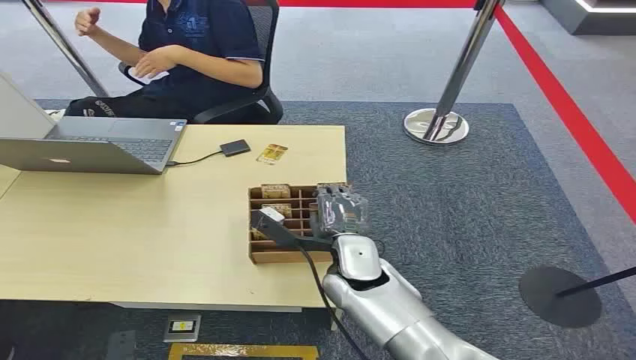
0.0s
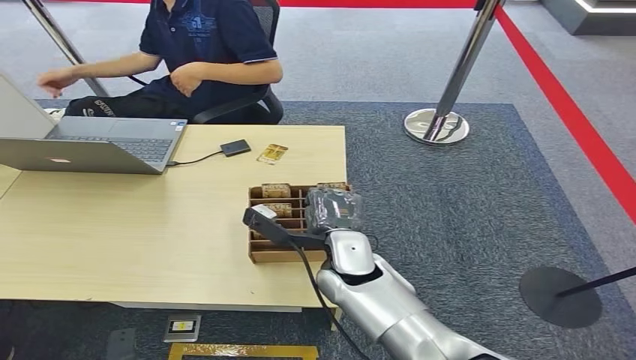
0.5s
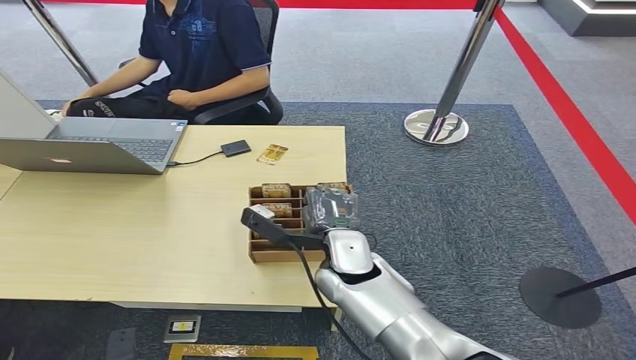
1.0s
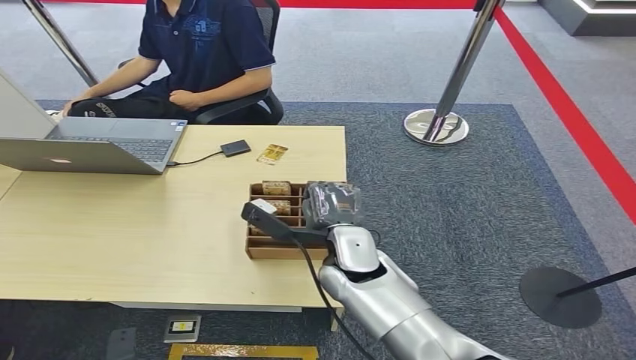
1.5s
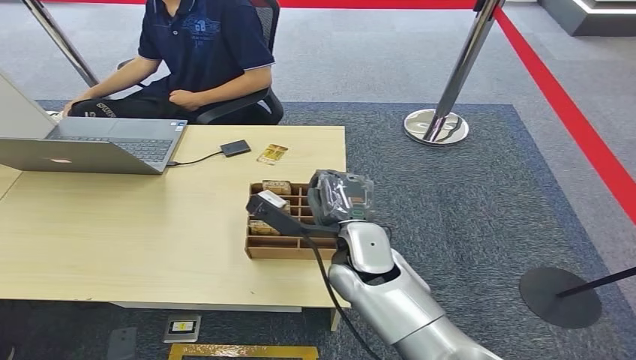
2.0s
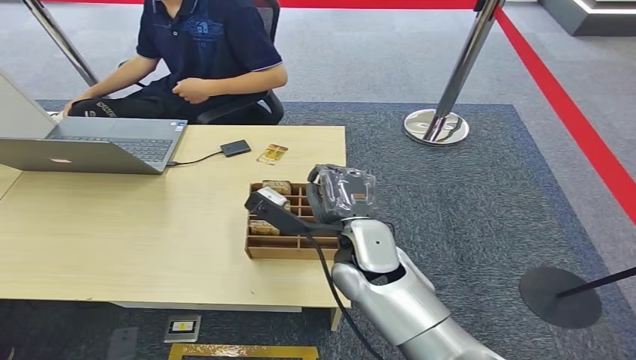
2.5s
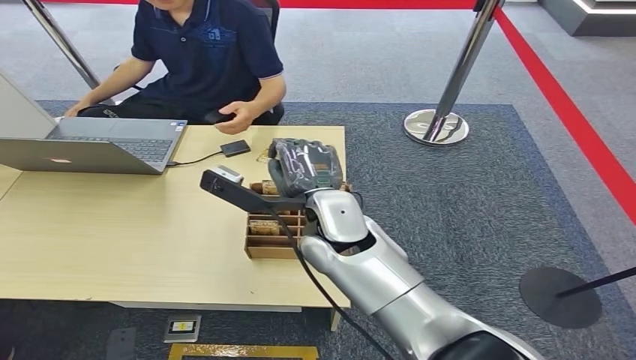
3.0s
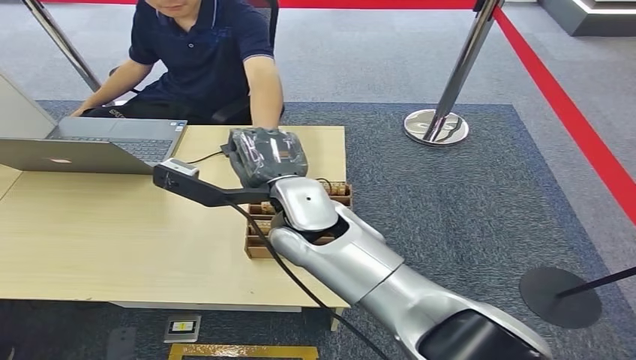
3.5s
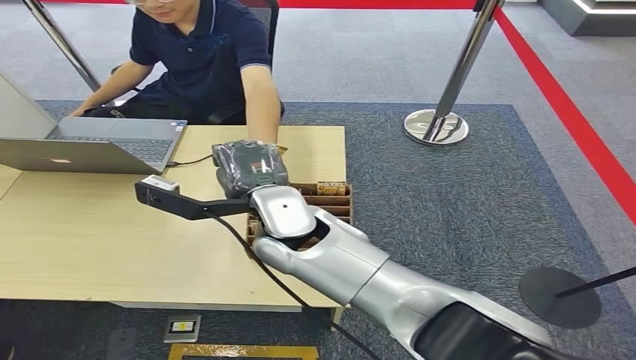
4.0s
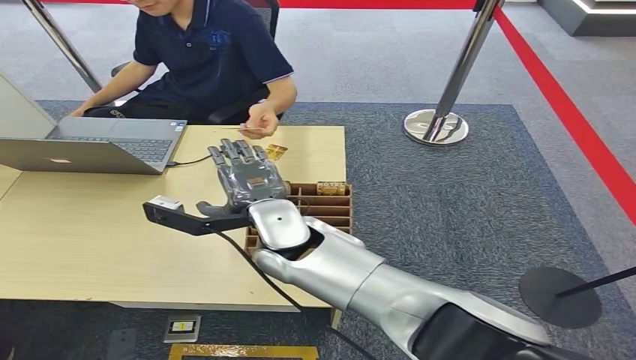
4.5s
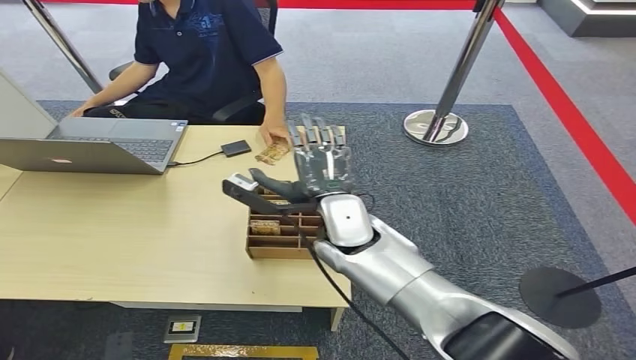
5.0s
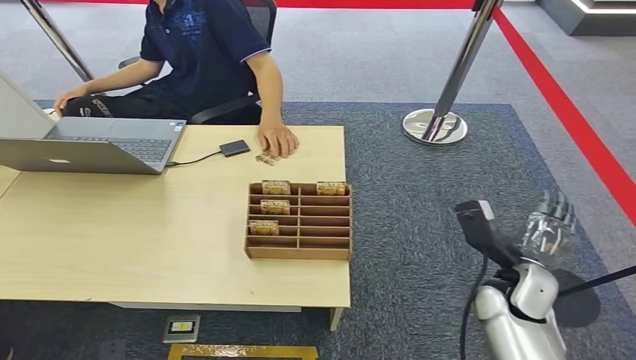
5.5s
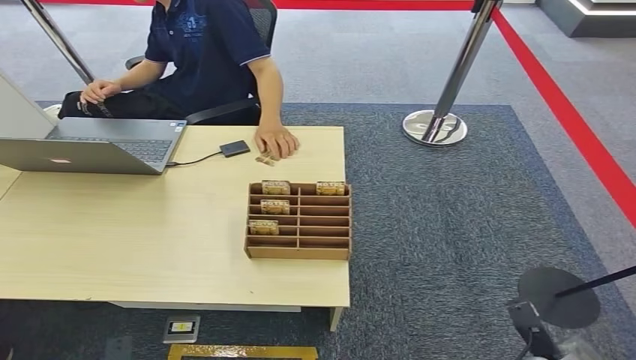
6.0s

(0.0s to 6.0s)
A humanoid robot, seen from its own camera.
Step, 0.0s - 2.5s: Pick up the room card from the card holder.
Step, 3.0s - 6.0s: Hand the room card to the target.
2.0s - 4.0s: The right hand moves upward and to the left, about 10 cm.
4.0s - 6.0s: The right hand moves to the right, downward and backward, roughly 50 cm.

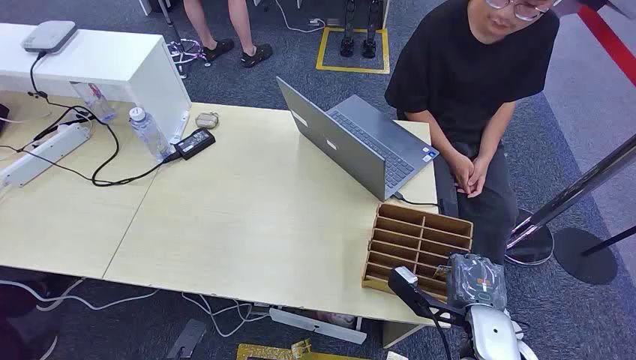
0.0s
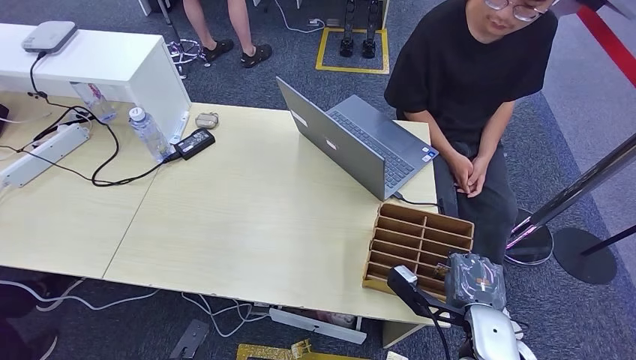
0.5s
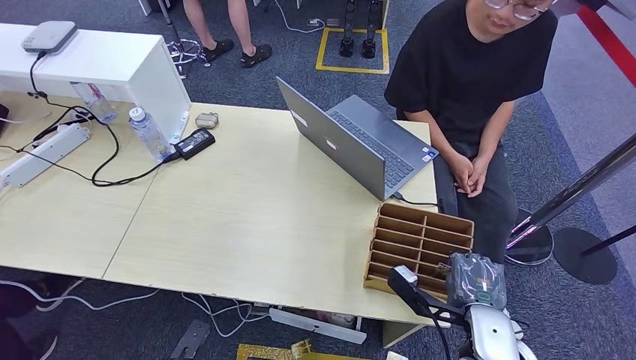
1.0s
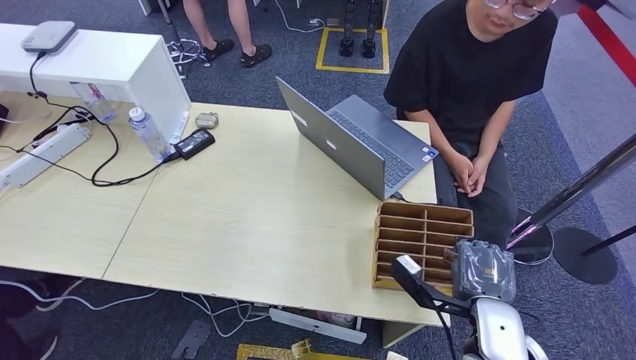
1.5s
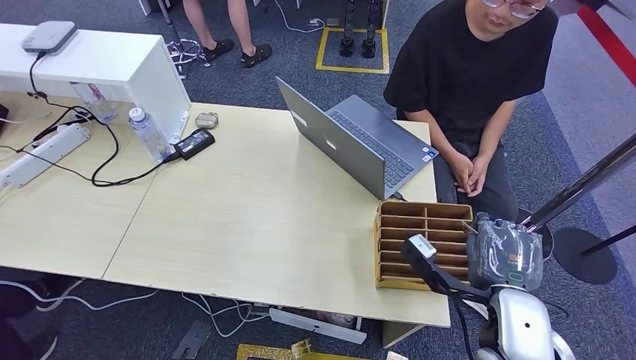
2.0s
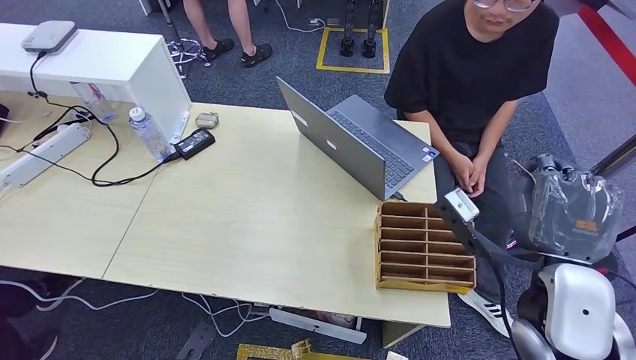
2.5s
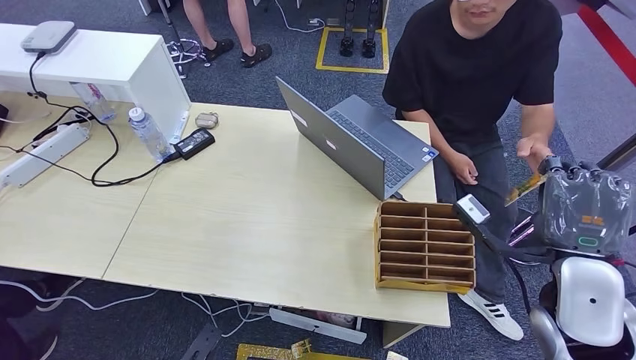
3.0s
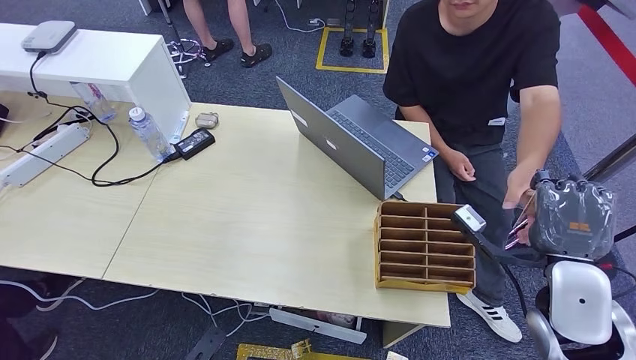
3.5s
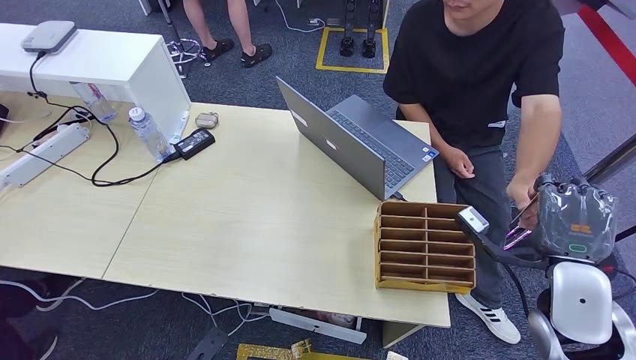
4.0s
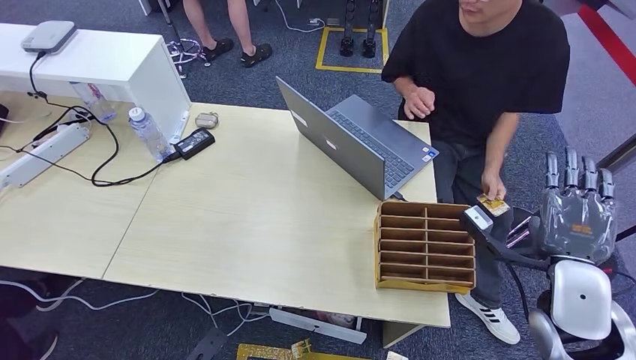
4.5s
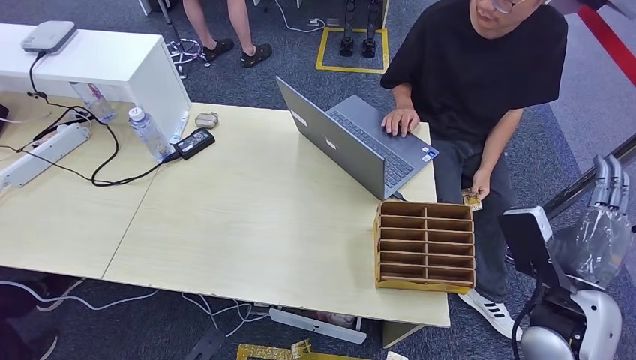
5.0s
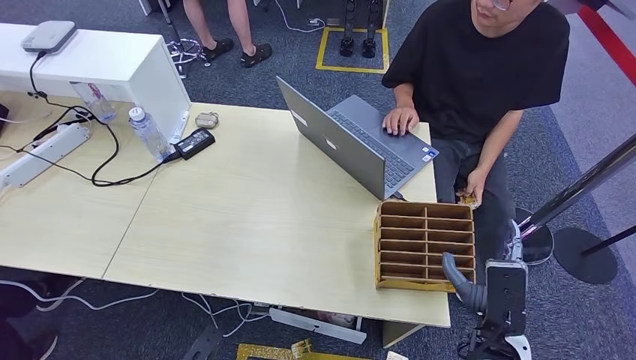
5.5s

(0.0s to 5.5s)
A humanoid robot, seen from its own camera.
Step, 0.0s - 2.0s: Pick up the room card from the card holder.
Step, 2.5s - 5.5s: Hand the room card to the target.
2.0s - 3.5s: The right hand is displaced to the right by approximately 5 cm.
3.5s - 5.5s: The right hand shifts roughly 15 cm downward, backward and to the left.

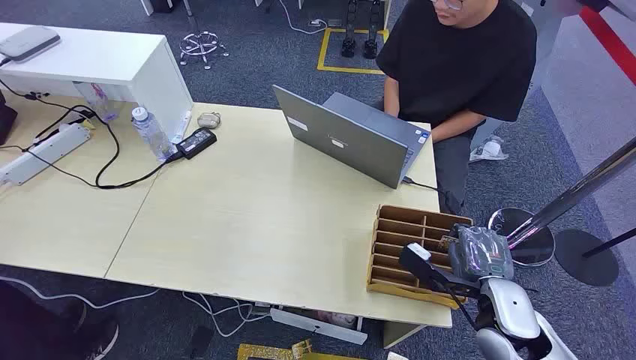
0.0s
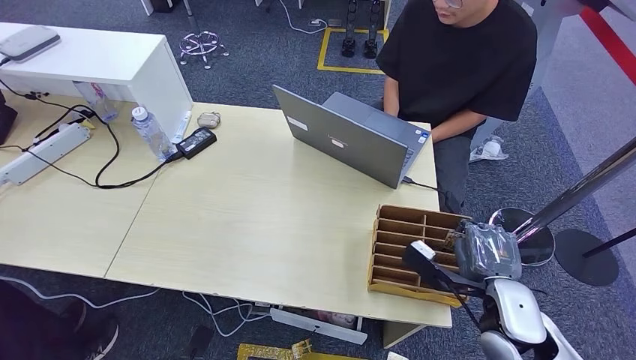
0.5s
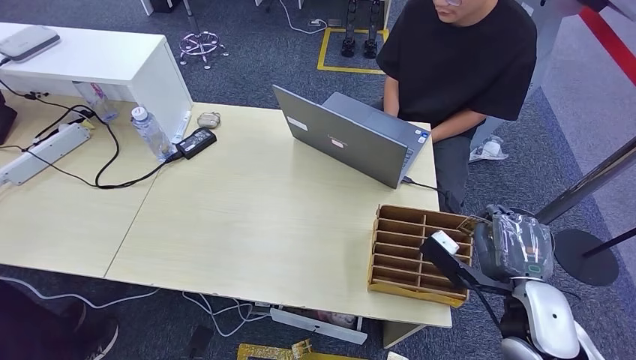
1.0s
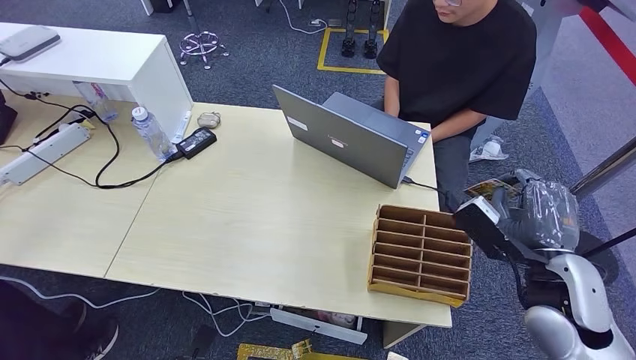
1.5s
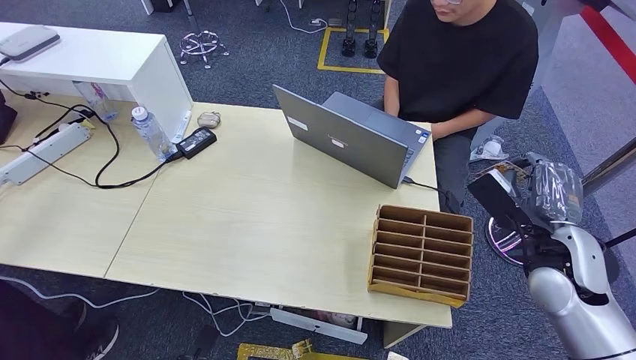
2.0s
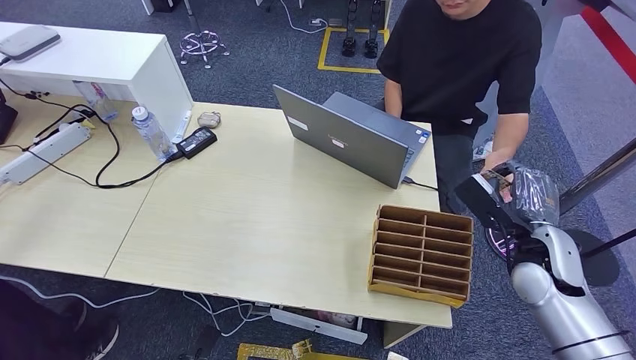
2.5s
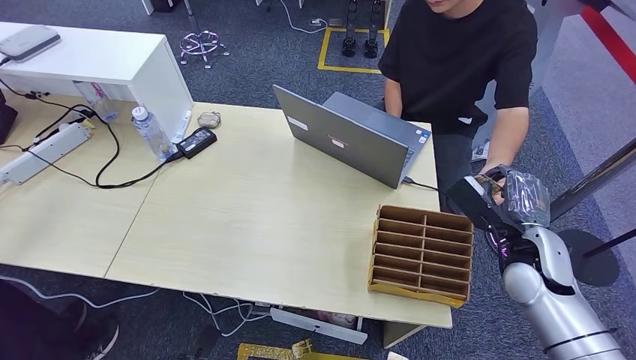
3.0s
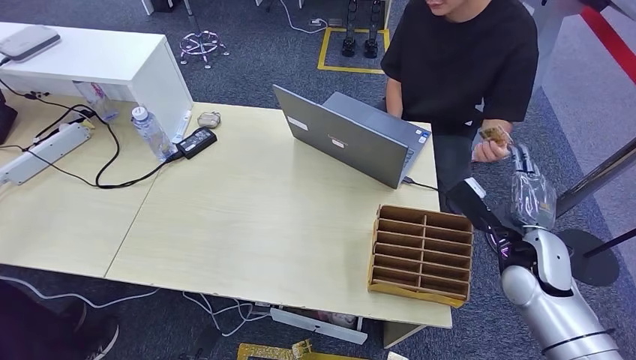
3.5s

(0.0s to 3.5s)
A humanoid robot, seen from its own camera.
Step, 0.0s - 1.0s: Pick up the room card from the card holder.
Step, 1.5s - 3.5s: Hand the room card to the target.
2.0s - 3.5s: The right hand ends up some 5 cm from where it was.

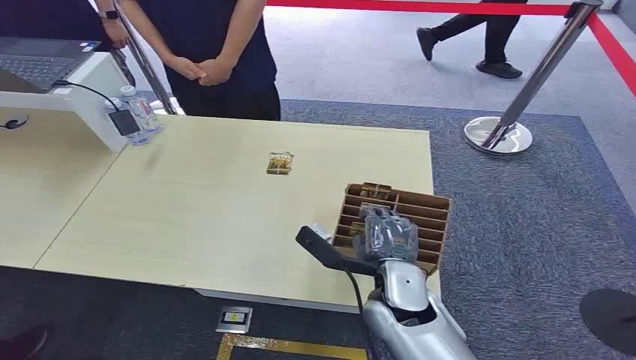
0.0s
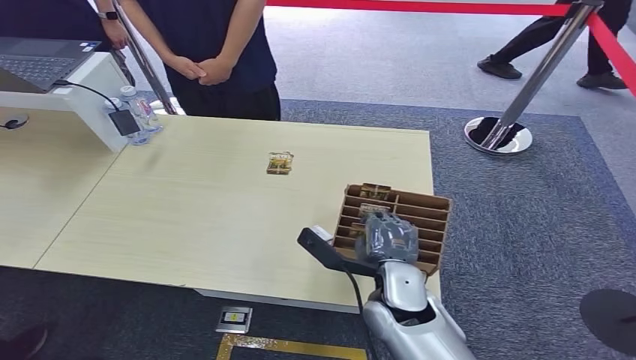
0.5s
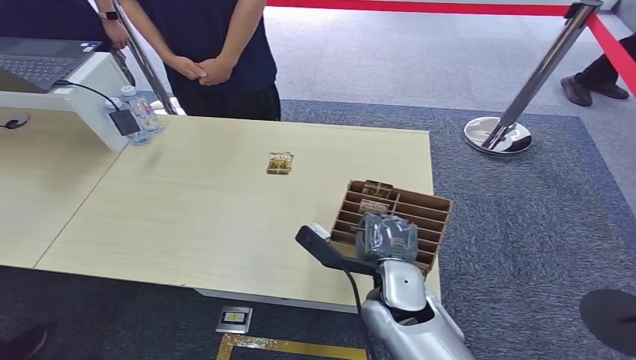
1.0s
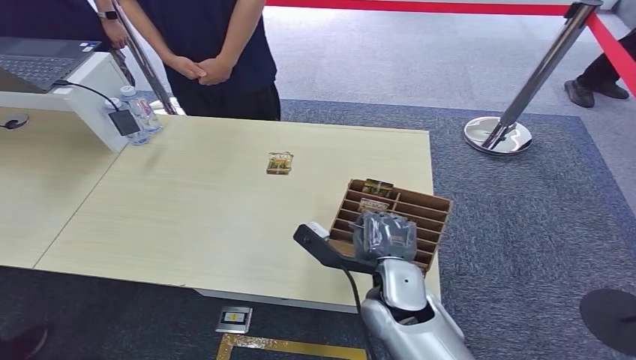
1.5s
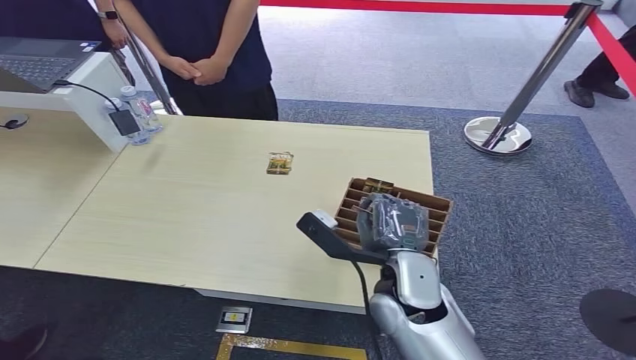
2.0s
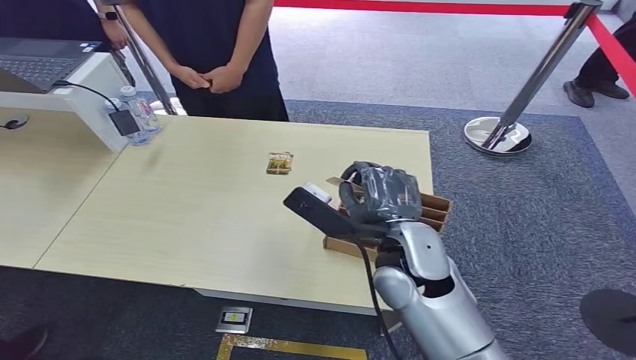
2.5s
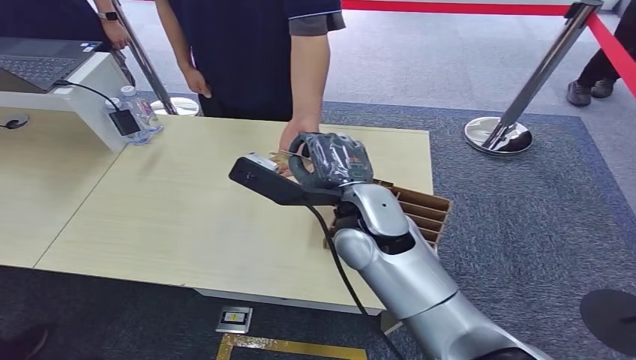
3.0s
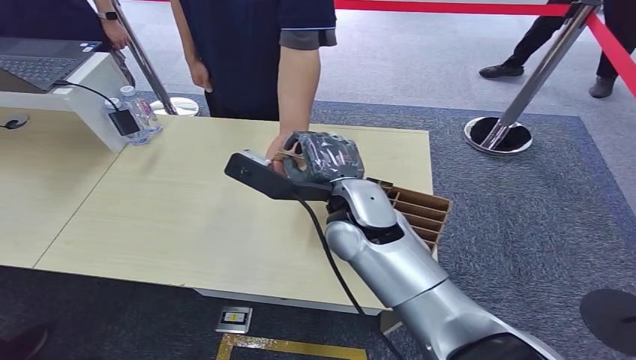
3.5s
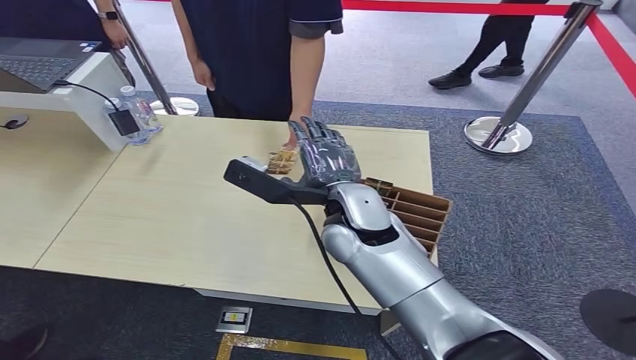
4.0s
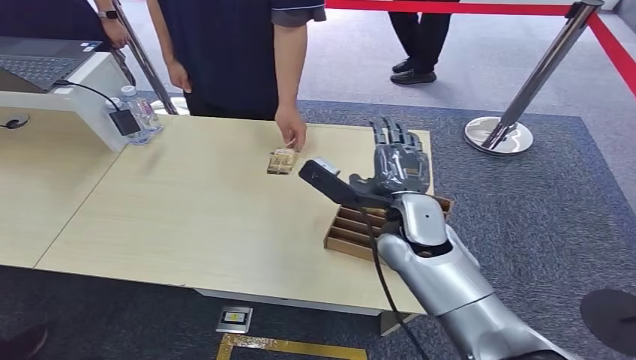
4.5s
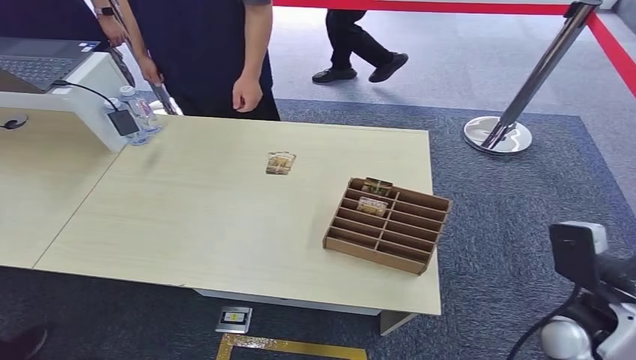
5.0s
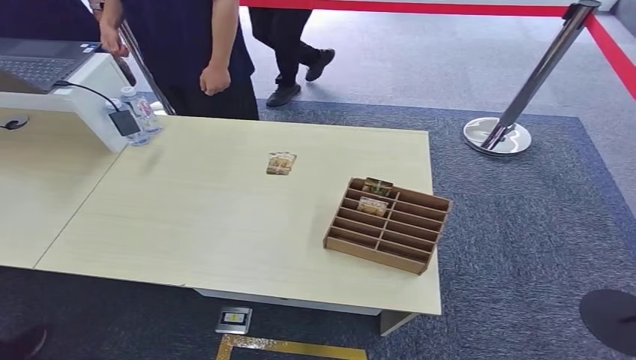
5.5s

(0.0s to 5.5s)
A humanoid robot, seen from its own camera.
Step, 0.0s - 2.0s: Pick up the room card from the card holder.
Step, 2.5s - 5.5s: Hand the room card to the target.
